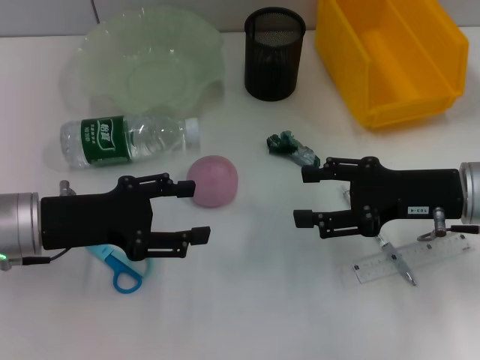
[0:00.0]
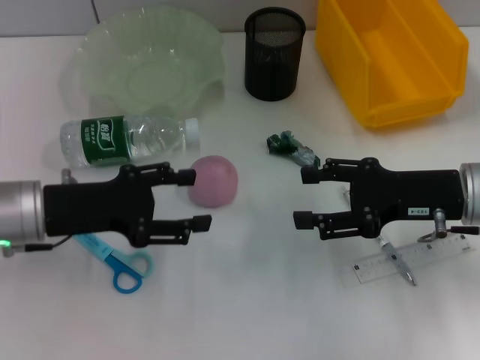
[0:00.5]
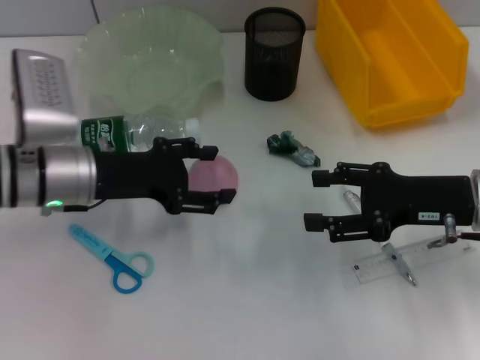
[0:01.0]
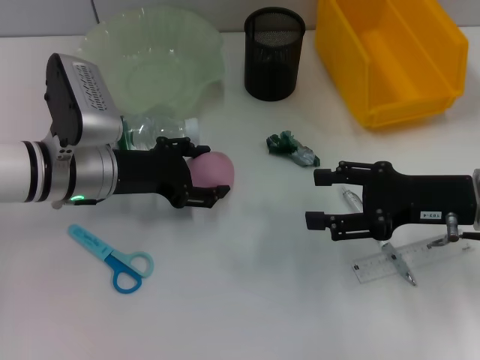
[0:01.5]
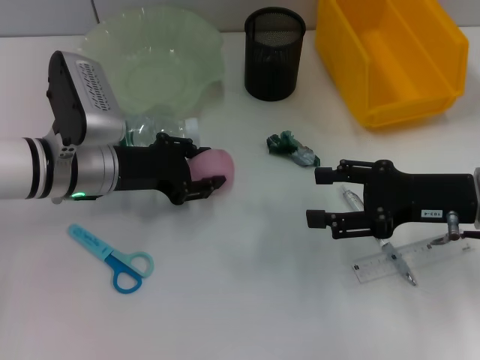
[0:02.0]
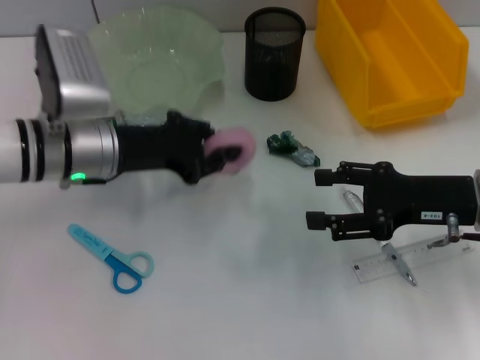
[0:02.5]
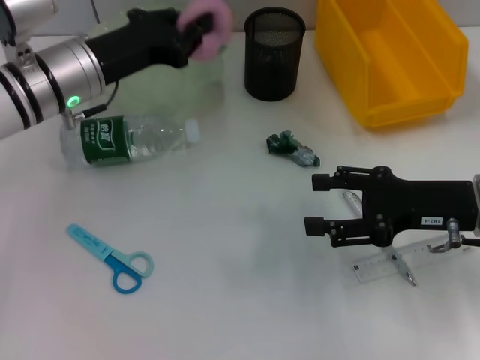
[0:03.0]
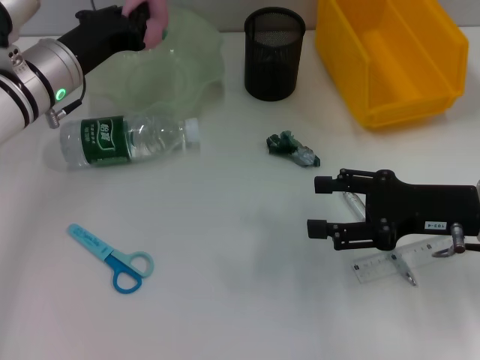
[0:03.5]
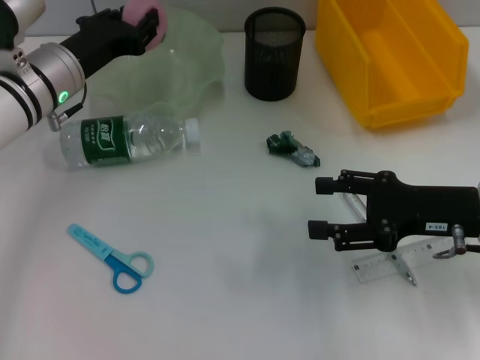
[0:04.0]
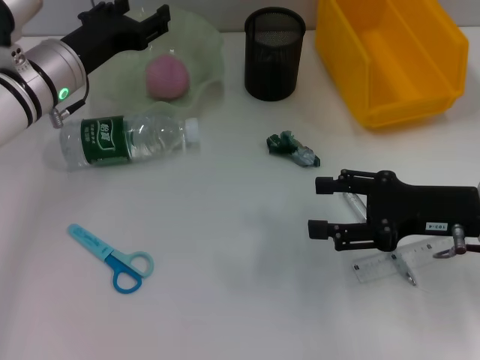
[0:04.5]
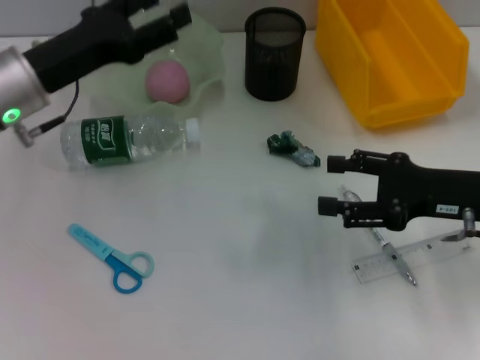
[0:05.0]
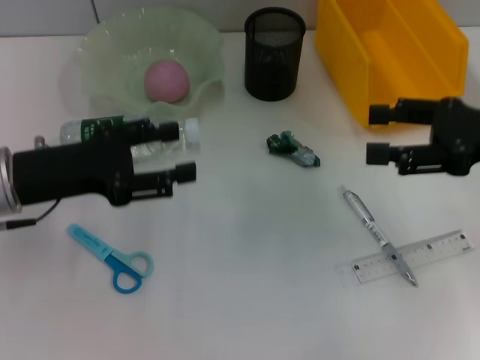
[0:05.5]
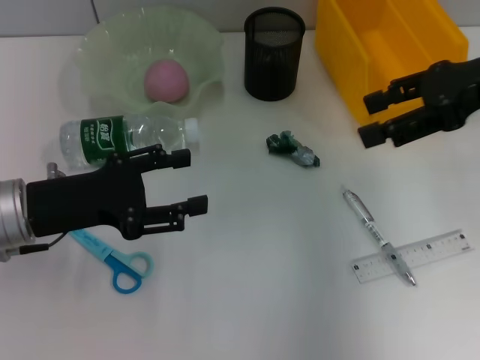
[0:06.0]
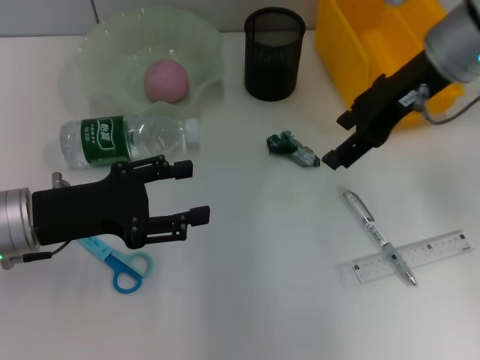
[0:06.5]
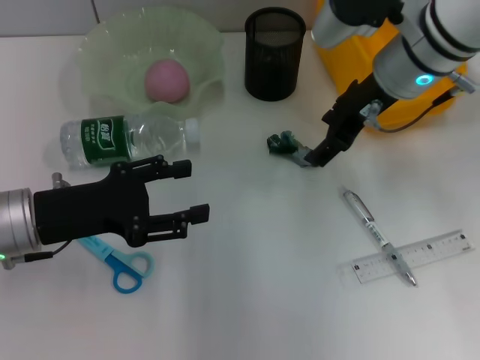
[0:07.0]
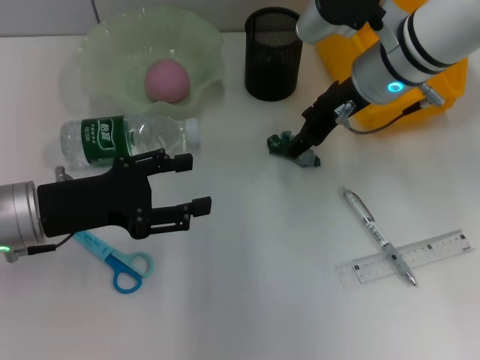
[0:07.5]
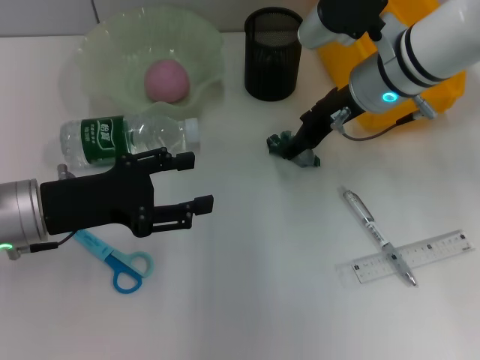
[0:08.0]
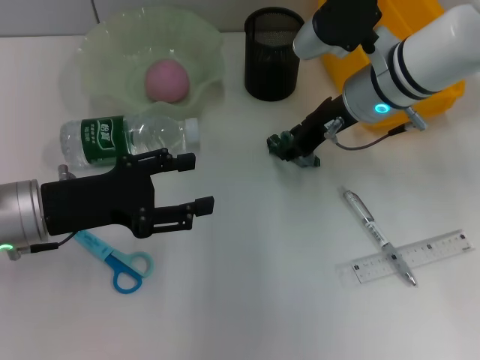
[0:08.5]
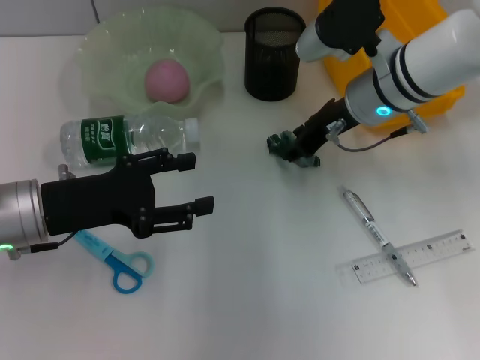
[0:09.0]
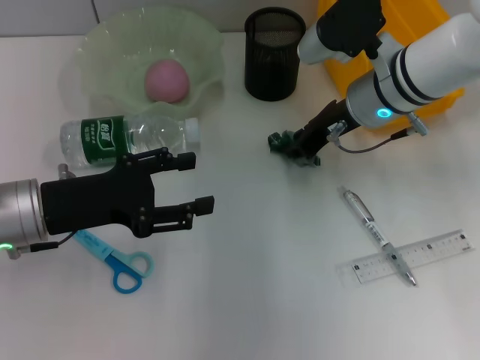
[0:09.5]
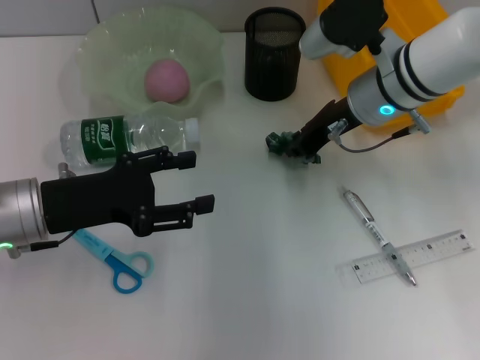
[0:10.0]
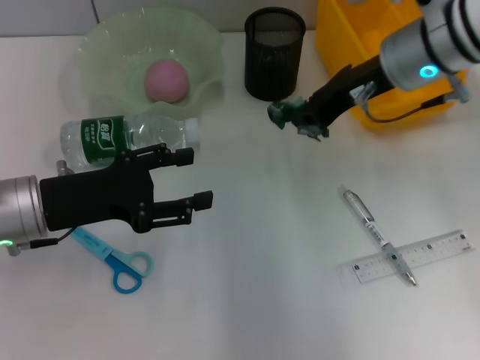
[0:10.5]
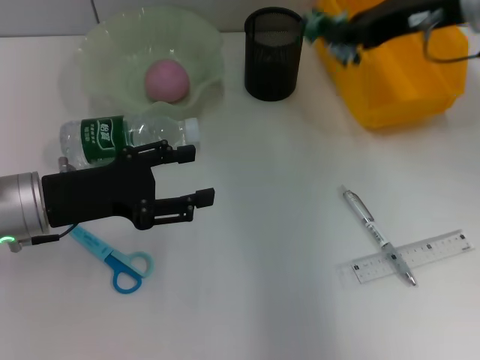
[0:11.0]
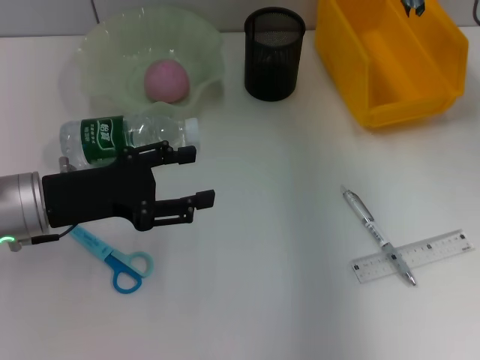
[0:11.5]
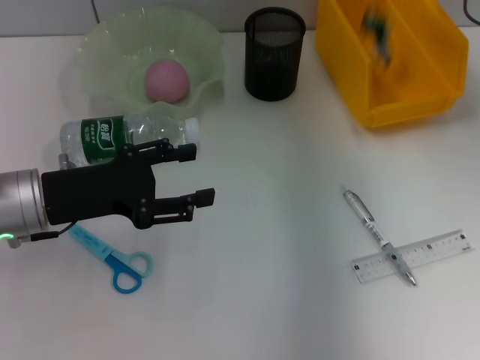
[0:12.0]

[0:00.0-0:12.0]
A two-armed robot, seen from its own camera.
Step, 0:00.0 to 0:02.0: Grab the peach with the left hand.
Step, 0:02.5 to 0:04.0: Place the peach into the fruit bowl with the left hand.
Step, 0:04.5 to 0:09.5: Grab the plastic with the right hand.
0:00.0 to 0:02.0: The left gripper moves forward and to the right, about 10 cm.
0:02.0 to 0:04.0: The left gripper heads forward, covering roughly 5 cm, and closes up.
0:04.0 to 0:06.0: The left gripper heads backward, covering about 15 cm, and opens, while the right gripper travels upward and forward by about 15 cm.
0:06.0 to 0:08.0: The right gripper moves to the left, downward and forward, about 15 cm.
0:08.0 to 0:10.0: The right gripper closes up.
0:10.0 to 0:12.0: The right gripper is displaced to the right and upward by some 15 cm.

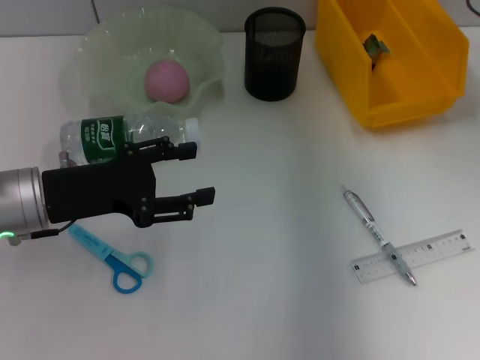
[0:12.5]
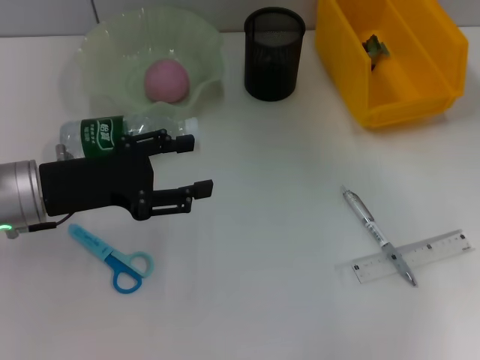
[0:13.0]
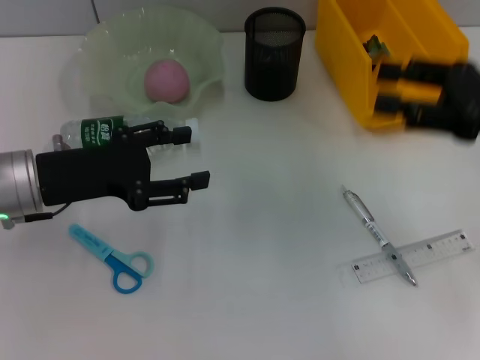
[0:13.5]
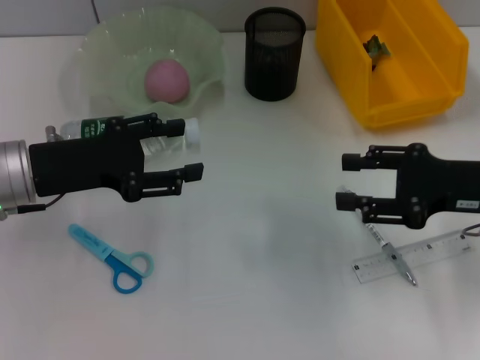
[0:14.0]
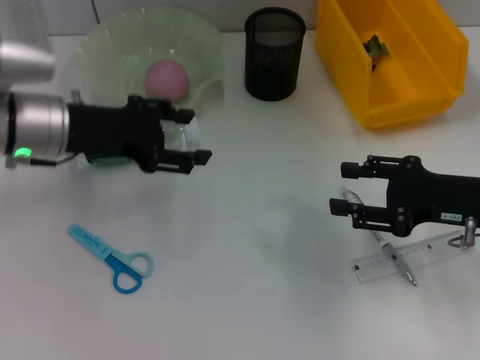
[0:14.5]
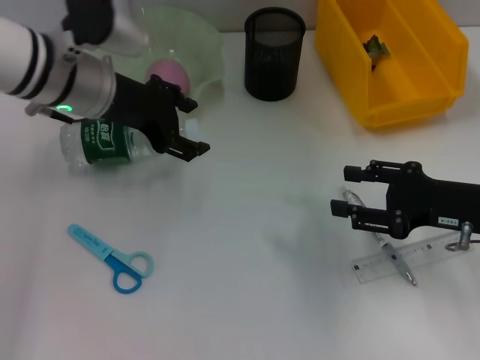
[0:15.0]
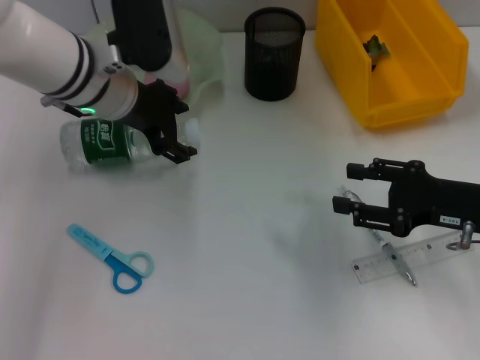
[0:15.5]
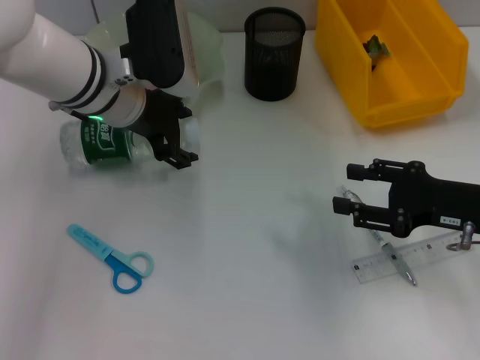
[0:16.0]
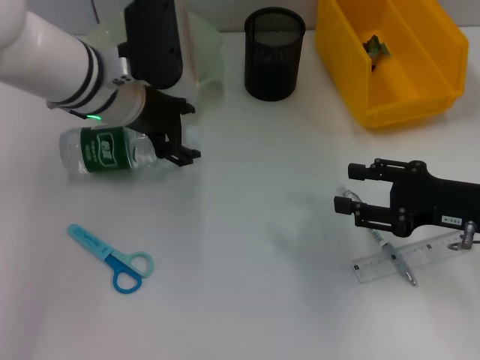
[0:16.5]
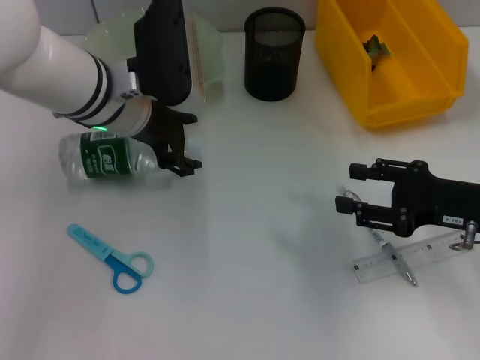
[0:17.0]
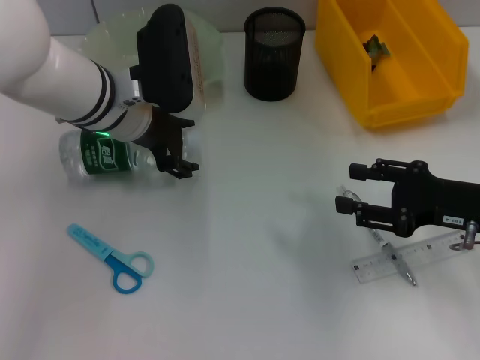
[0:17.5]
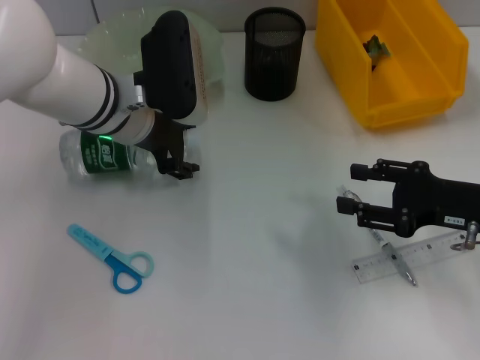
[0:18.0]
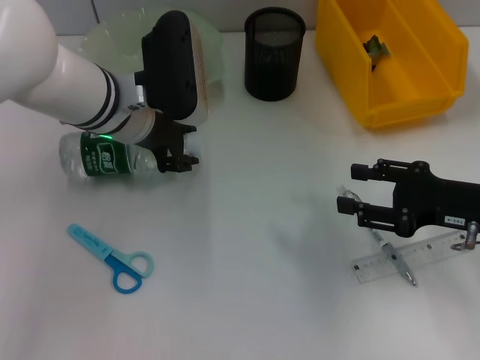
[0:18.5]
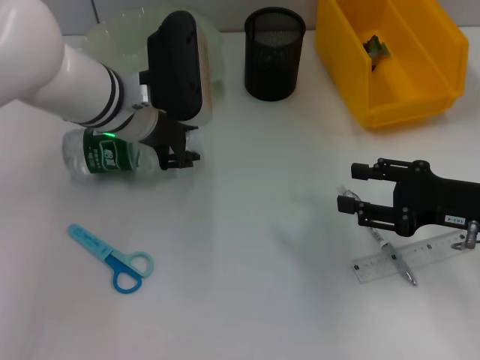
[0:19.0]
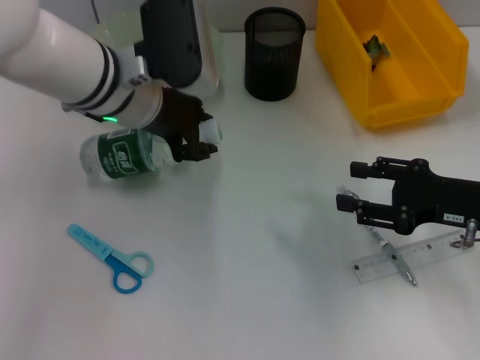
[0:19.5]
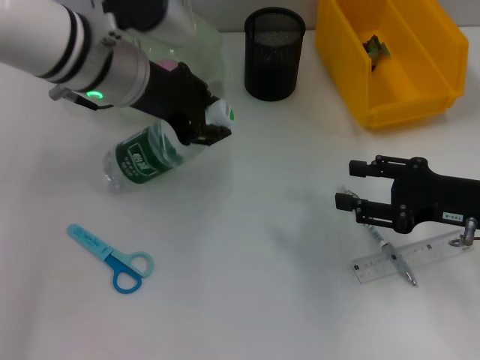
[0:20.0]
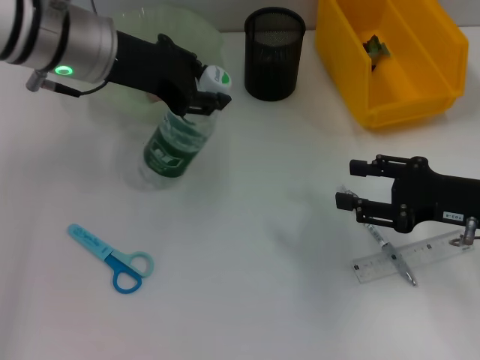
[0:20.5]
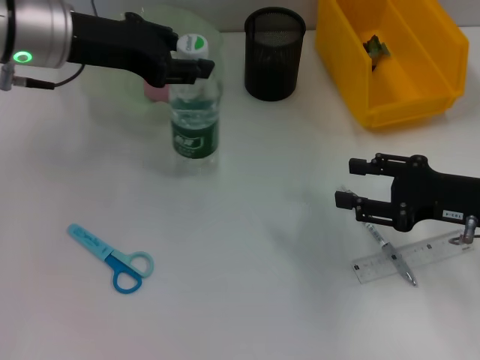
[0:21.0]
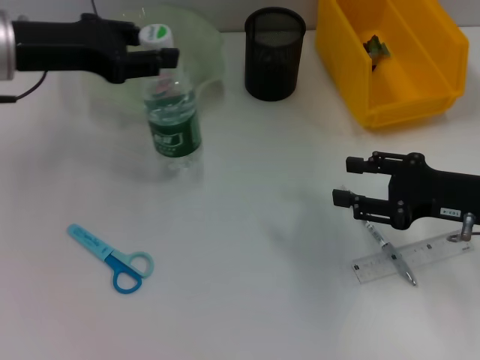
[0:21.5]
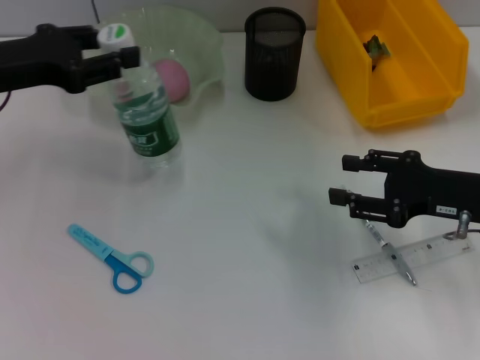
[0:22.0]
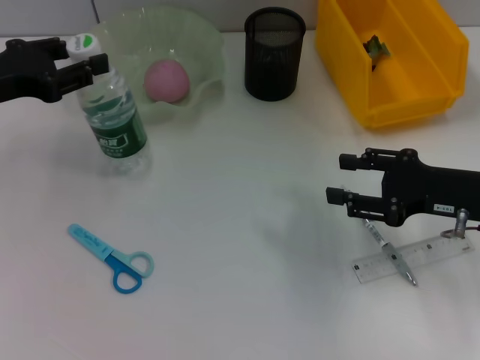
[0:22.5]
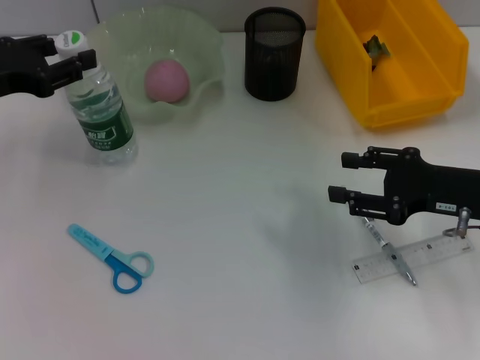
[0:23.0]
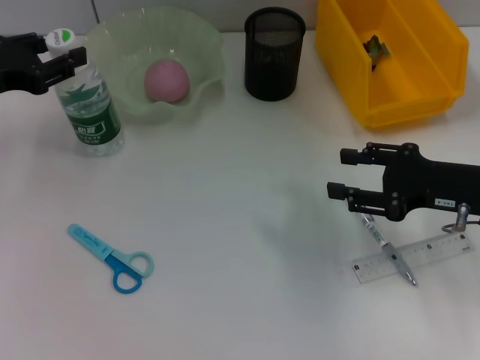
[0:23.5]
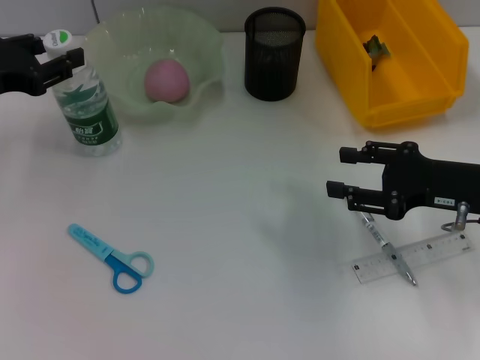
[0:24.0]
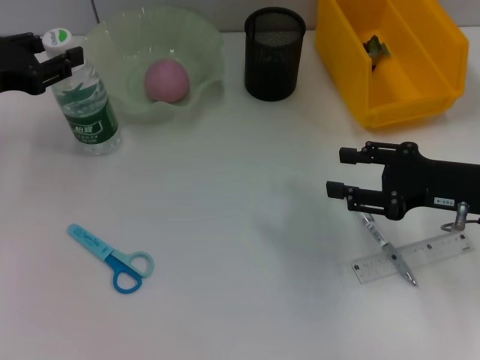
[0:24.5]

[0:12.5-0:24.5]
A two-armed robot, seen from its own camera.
Step, 0:12.5 to 0:18.5: Grab the water bottle with the left hand.
0:12.5 to 0:14.5: The right gripper heads backward and downward, covering roughly 20 cm. Meanwhile the left gripper travels forward by about 5 cm.
0:14.5 to 0:16.5: The left gripper goes roughly 10 cm to the right.
0:16.5 to 0:18.5: The left gripper closes.
0:18.5 to 0:20.5: The left gripper travels upward by roughly 10 cm.
0:20.5 to 0:22.5: The left gripper heads to the left, covering roughly 15 cm.
0:22.5 to 0:24.5: The grippers move only a little.

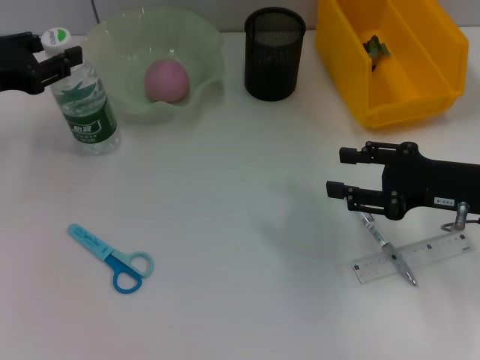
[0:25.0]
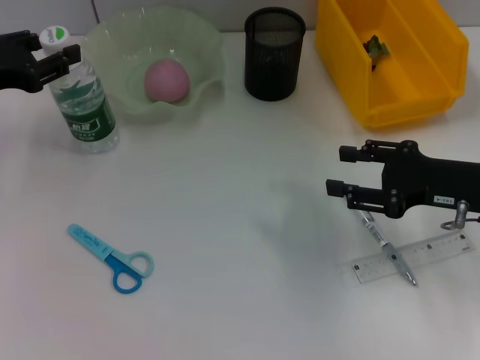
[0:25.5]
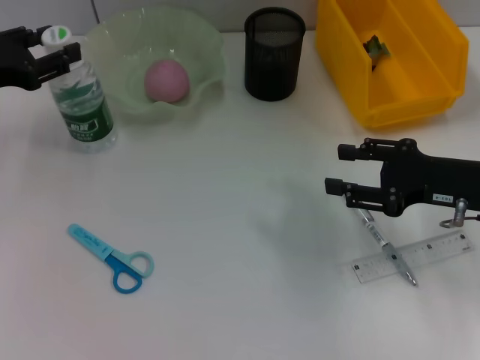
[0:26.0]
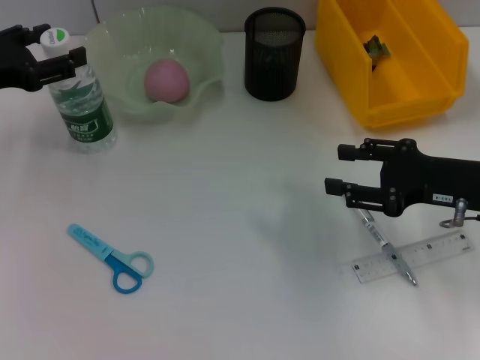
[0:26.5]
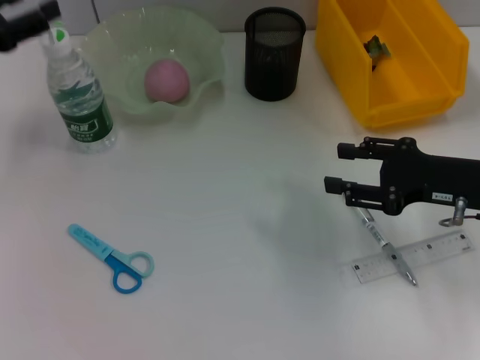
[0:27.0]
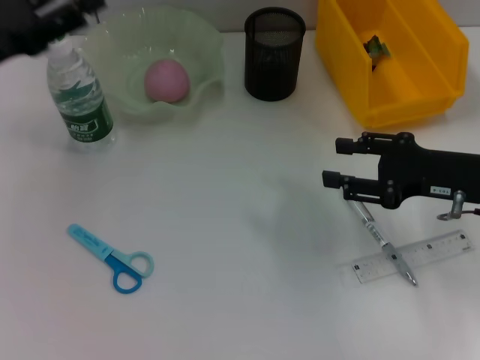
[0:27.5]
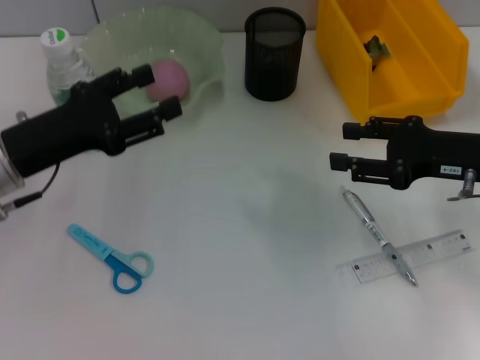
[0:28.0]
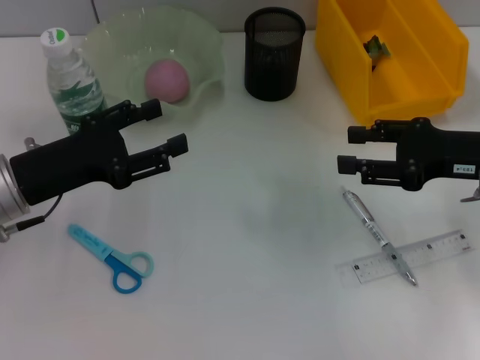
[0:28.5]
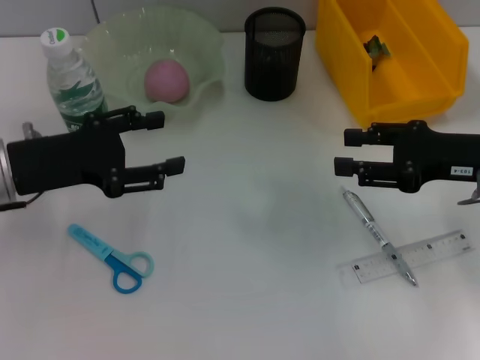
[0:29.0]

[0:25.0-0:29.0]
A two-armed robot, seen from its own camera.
0:25.0 to 0:27.0: The left gripper opens its fingers.
0:27.0 to 0:29.0: The left gripper is displaced to the right by some 5 cm.
